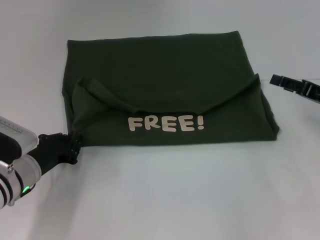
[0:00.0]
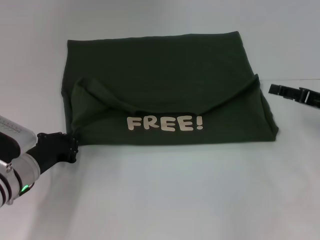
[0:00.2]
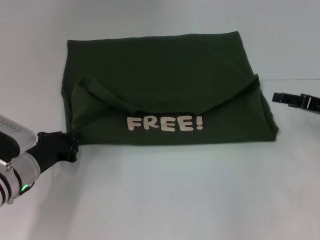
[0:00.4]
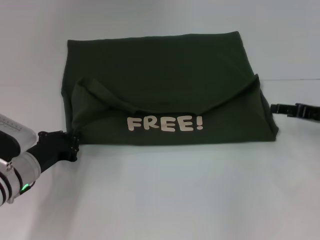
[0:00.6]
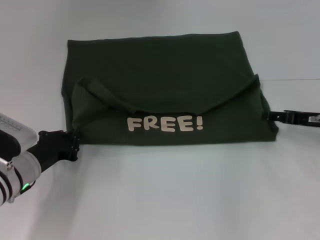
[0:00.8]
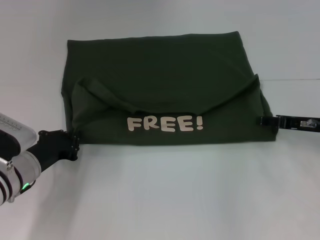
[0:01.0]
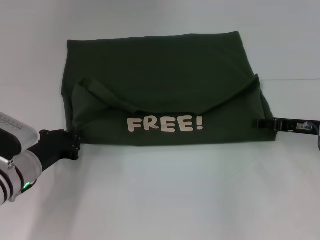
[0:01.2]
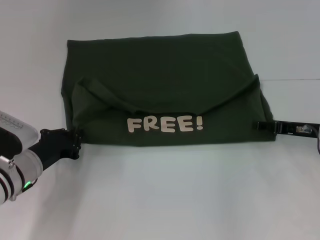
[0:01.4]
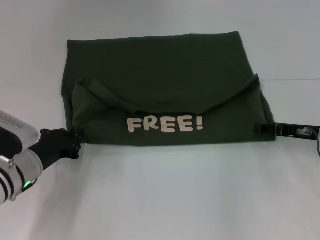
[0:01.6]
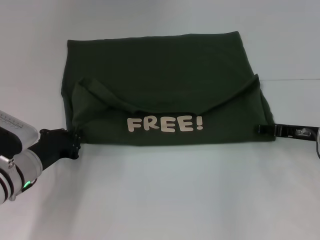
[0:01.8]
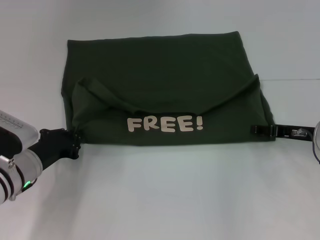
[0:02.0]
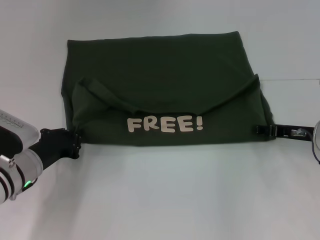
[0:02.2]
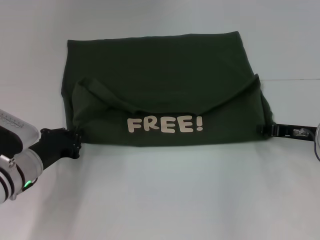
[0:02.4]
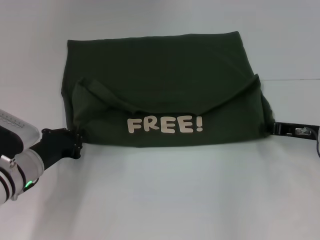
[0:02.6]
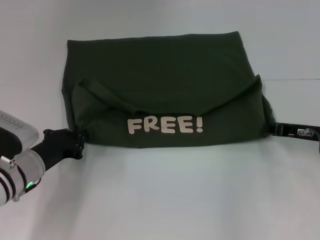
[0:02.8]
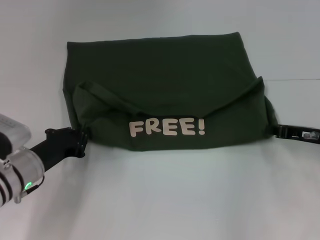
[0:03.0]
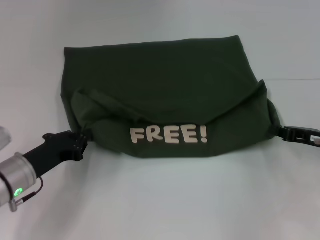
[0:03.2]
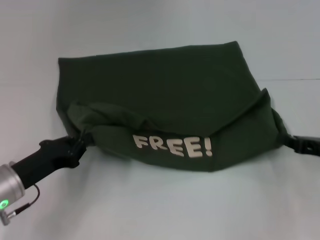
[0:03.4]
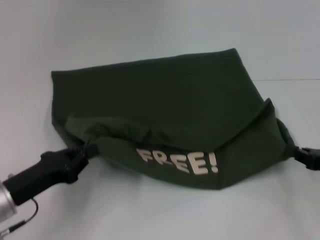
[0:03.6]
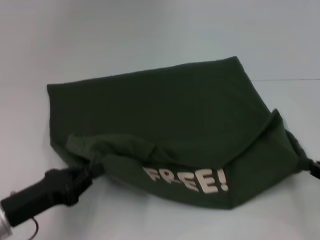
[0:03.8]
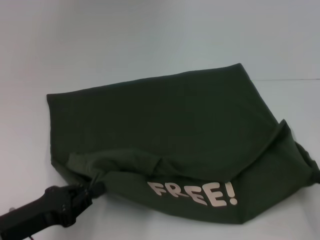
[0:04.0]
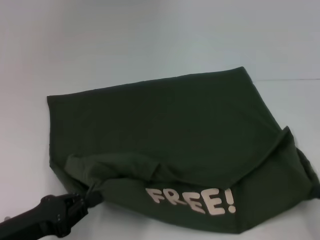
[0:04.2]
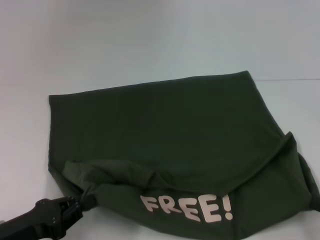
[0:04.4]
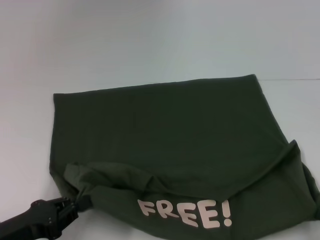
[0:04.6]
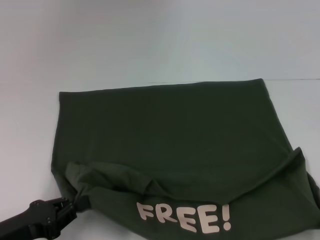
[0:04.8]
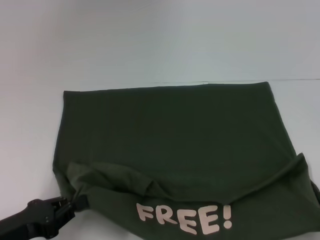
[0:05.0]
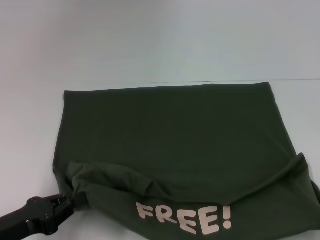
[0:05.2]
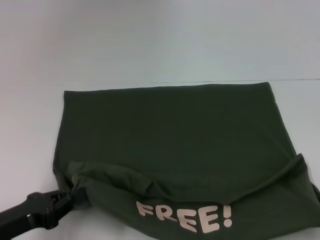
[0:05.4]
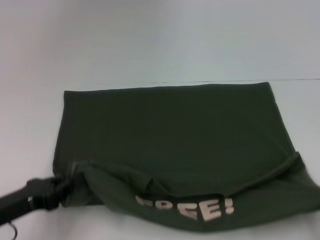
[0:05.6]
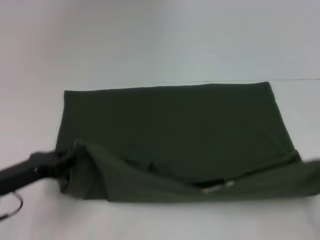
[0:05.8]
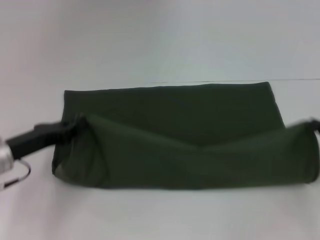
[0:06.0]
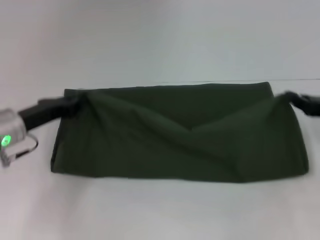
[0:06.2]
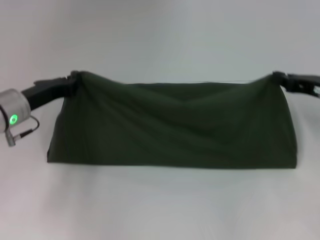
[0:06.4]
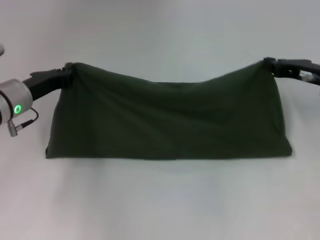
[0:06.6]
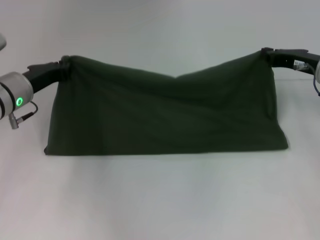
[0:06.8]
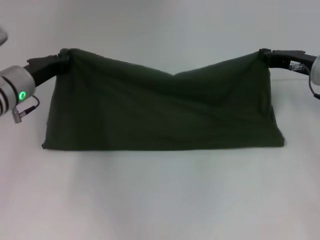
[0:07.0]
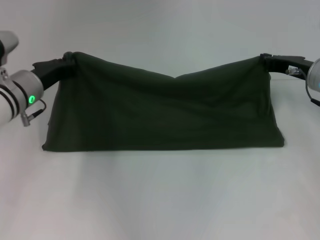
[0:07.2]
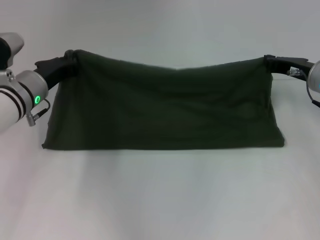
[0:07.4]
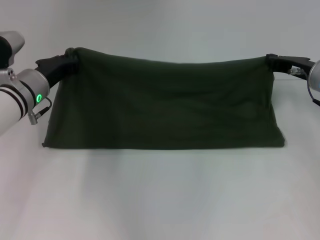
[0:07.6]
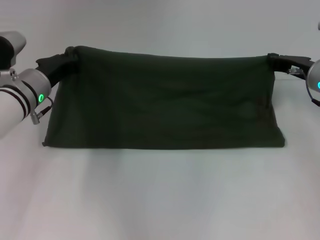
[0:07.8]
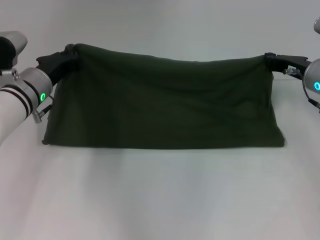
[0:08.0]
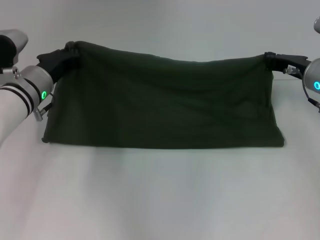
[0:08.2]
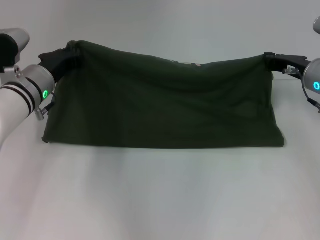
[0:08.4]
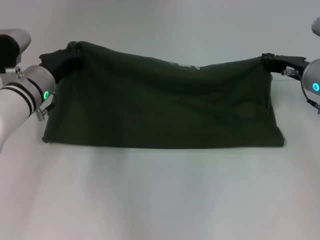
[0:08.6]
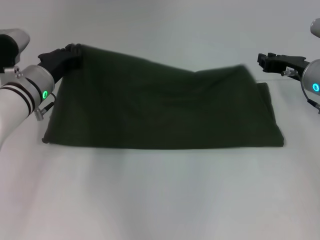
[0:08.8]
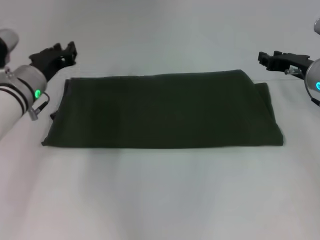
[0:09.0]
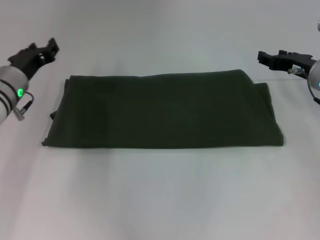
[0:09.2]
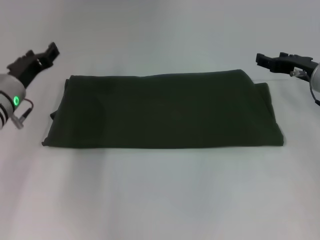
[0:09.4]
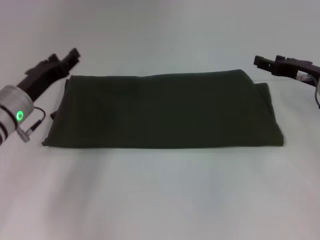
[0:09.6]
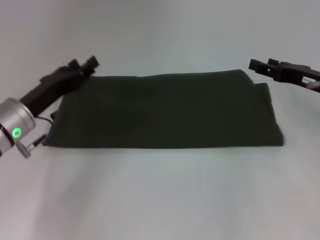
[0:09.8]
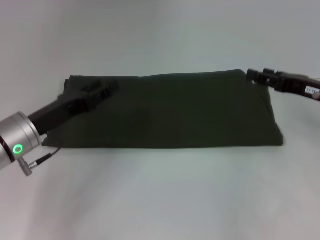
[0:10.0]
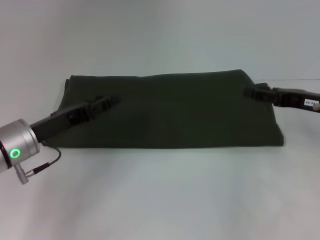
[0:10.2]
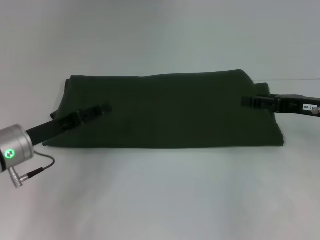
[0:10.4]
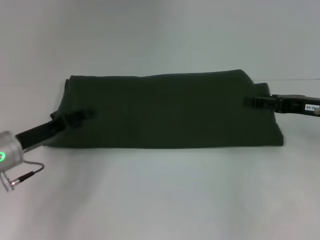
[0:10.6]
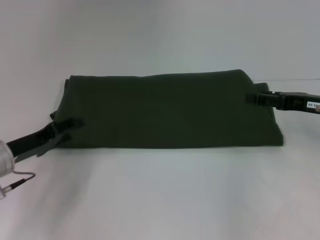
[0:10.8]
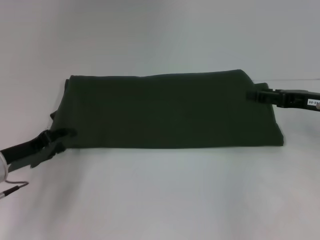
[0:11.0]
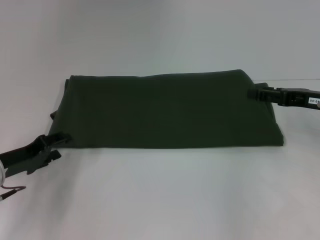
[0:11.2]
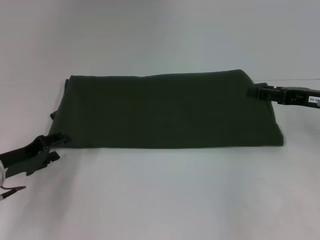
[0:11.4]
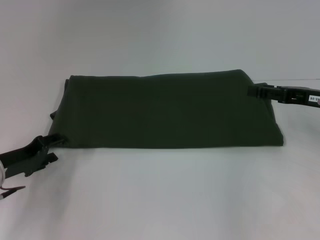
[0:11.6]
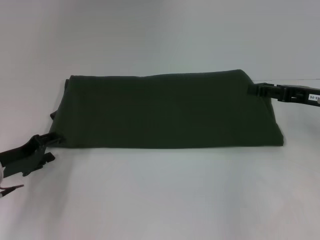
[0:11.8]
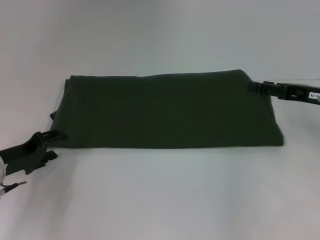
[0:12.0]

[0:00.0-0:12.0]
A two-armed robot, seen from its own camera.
Step, 0:00.0 to 0:05.0: Pull the clothes with your left hand.
Step, 0:00.0 to 0:05.0: Pull the clothes with your right hand.
Step, 0:05.2 to 0:09.0: Fold the clothes with your right hand.
0:00.0 to 0:01.6: The right gripper ends up about 5 cm from where it was.
0:01.6 to 0:03.0: The right gripper closes.
0:03.0 to 0:04.4: Both grippers travel together backward, some 15 cm.
0:04.4 to 0:06.0: The grippers both shift forward by some 10 cm.
0:06.0 to 0:07.6: The left gripper travels forward and to the right by approximately 10 cm. The right gripper moves forward and to the left, about 20 cm.
0:07.6 to 0:09.0: The right gripper opens its fingers.
0:09.0 to 0:10.4: The grippers both shift backward by about 10 cm. The left gripper opens. The right gripper opens.
0:10.4 to 0:12.0: The left gripper moves approximately 5 cm.

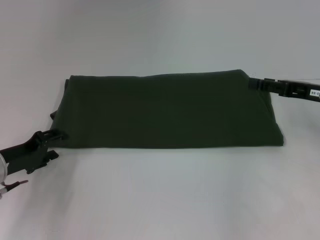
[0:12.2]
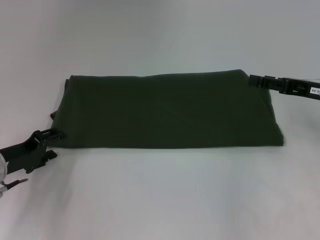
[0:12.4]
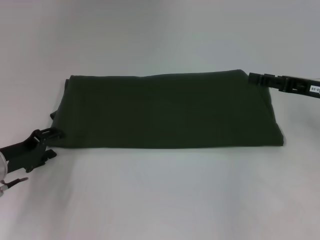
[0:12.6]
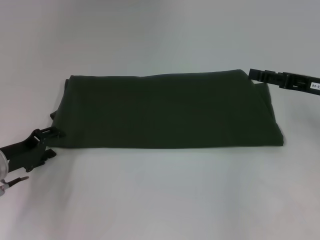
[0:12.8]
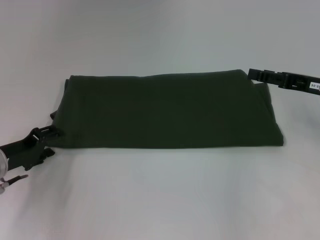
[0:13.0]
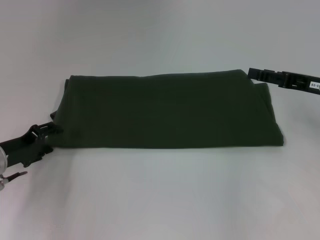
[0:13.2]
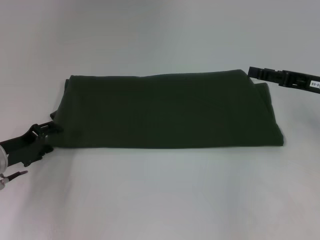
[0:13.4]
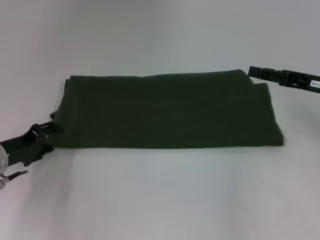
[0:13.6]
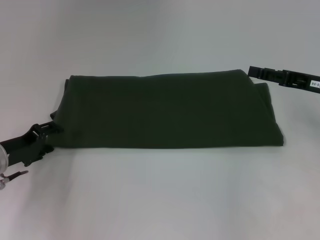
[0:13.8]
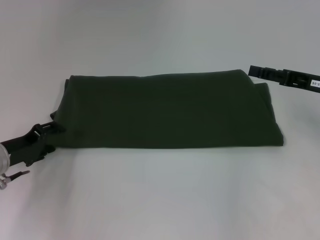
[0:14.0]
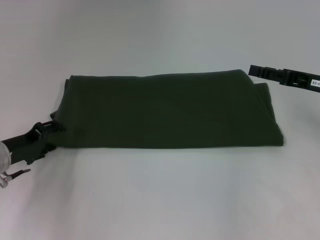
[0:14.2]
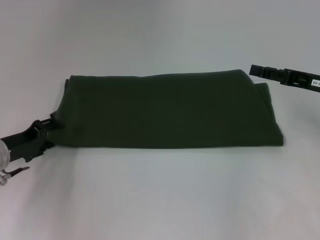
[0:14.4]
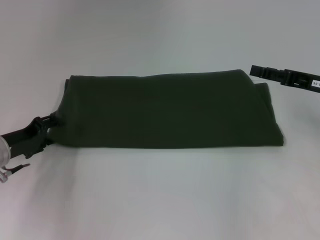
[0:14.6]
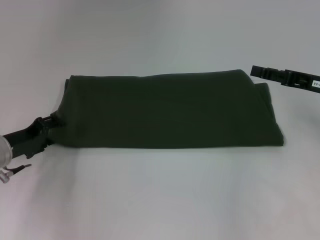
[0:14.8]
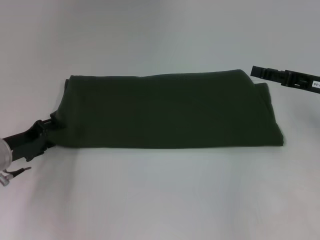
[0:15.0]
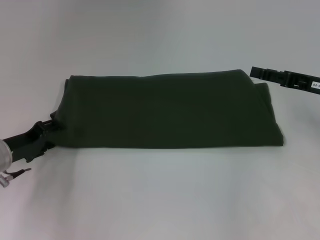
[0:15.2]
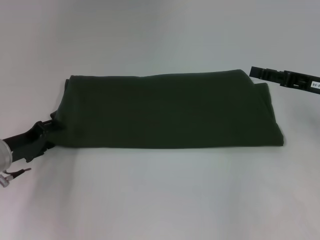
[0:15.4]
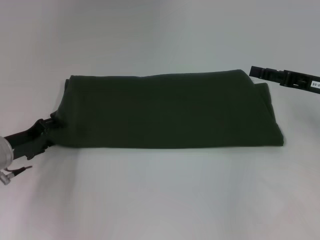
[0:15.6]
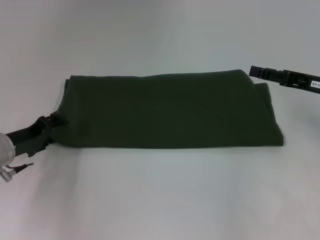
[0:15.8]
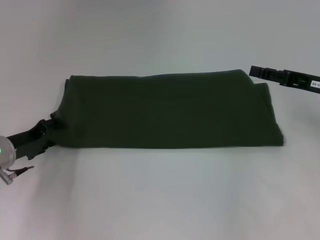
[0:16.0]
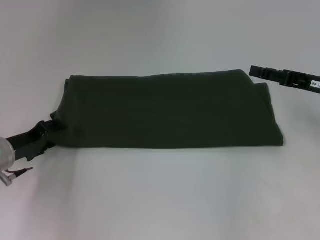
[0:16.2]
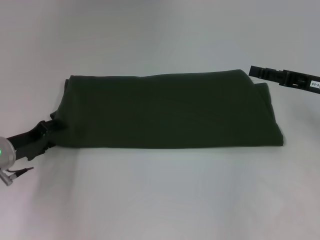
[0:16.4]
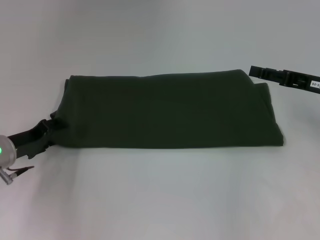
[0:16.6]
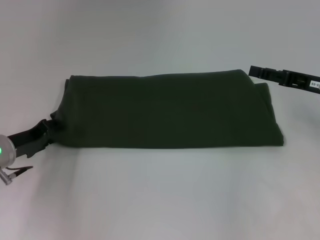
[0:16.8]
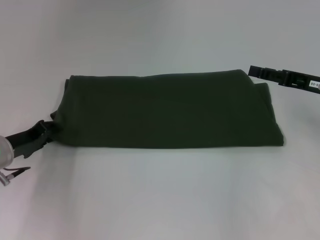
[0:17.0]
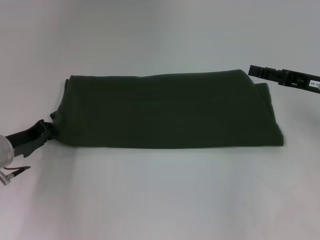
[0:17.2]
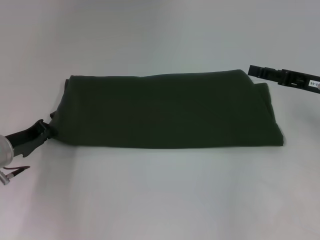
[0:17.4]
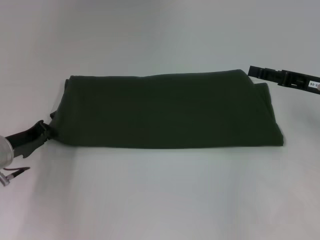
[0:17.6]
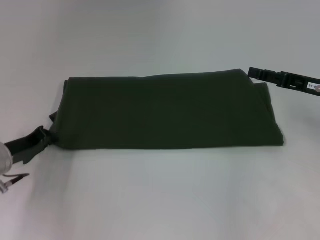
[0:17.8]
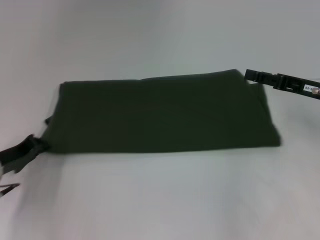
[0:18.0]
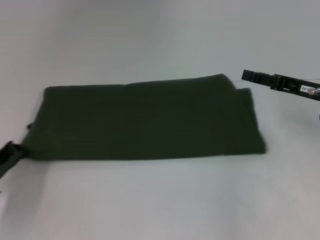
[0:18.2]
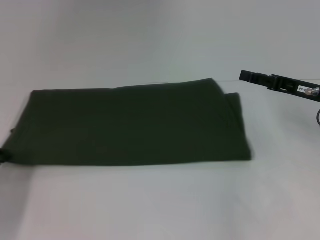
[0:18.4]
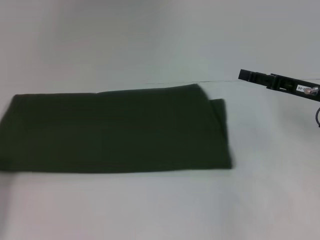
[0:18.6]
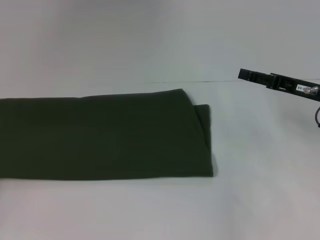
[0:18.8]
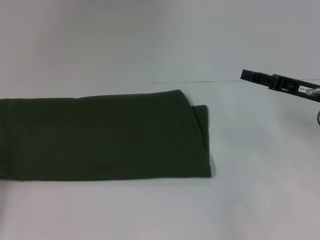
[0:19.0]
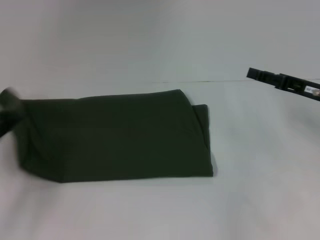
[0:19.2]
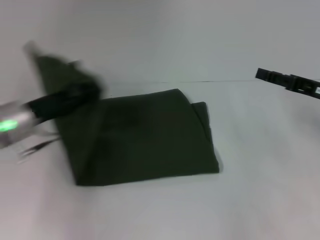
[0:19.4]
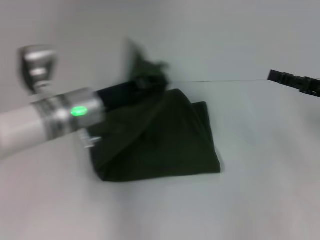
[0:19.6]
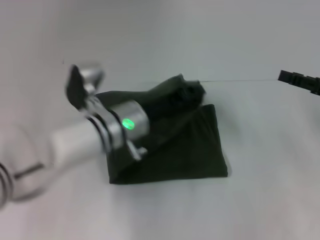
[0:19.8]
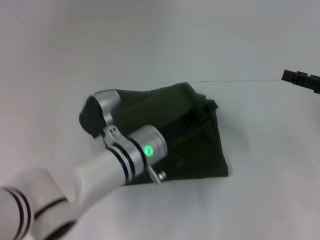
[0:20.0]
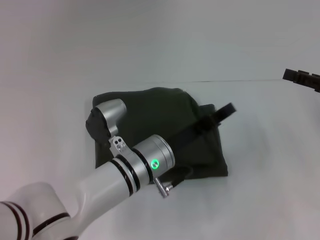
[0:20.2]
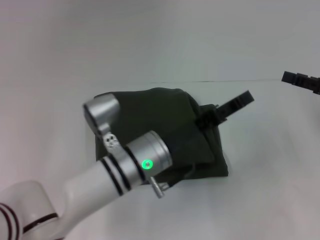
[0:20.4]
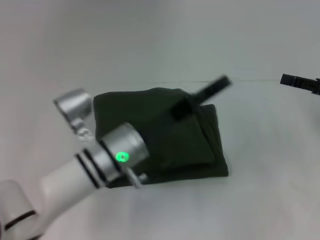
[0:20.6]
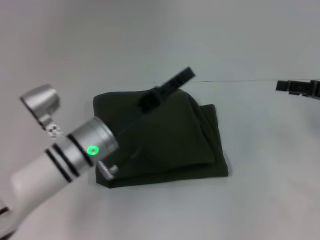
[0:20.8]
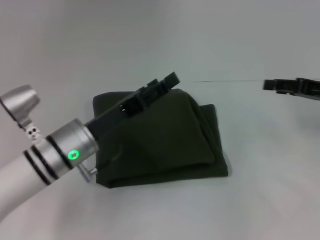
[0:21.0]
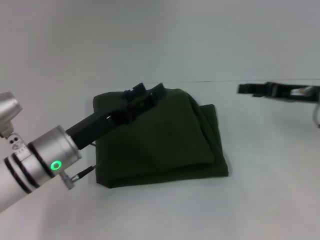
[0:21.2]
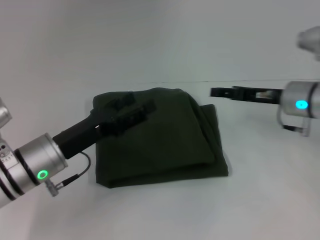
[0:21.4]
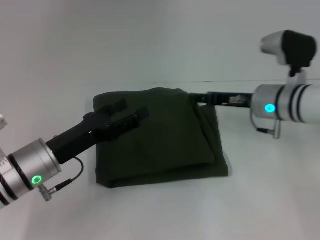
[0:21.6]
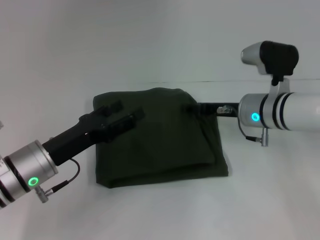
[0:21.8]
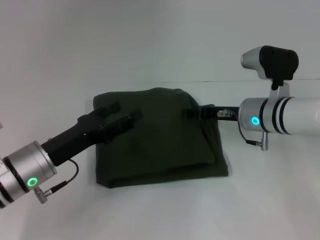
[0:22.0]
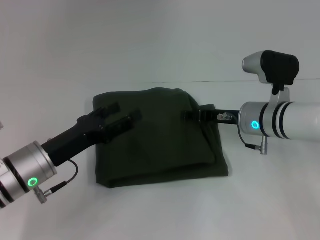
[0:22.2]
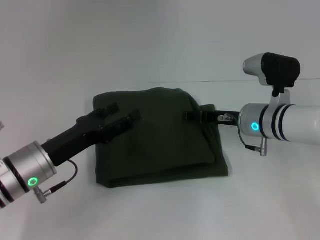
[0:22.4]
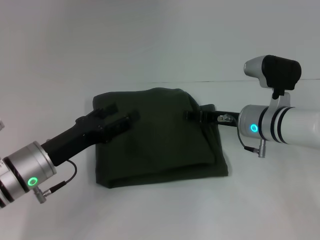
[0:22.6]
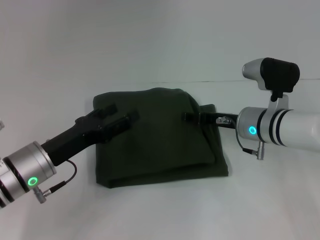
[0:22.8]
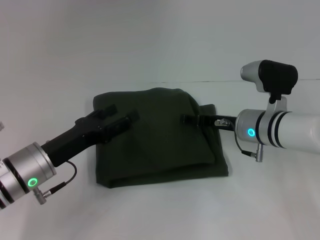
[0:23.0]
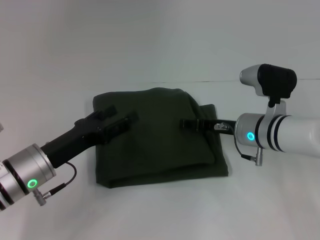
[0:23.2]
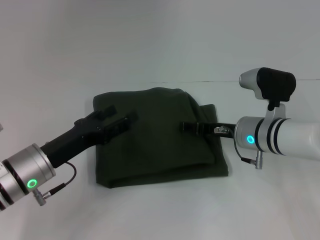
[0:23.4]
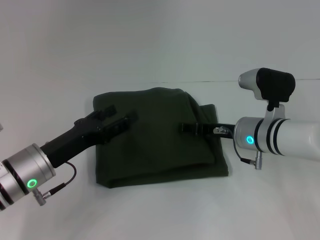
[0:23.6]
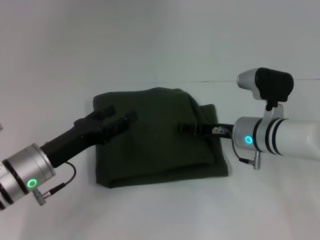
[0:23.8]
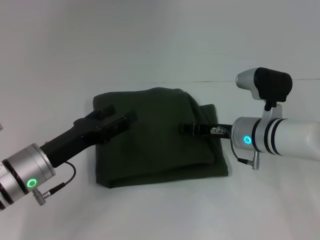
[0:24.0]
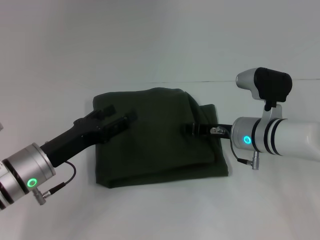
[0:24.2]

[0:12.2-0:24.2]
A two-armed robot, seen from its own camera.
Step, 0:12.2 to 0:20.2: Fold the clothes with your left hand.
0:12.2 to 0:13.8: There are only small adjustments of the grippers.
0:13.8 to 0:15.2: The two grippers keep their place.
0:15.2 to 0:16.6: The two grippers keep their place.
0:16.6 to 0:18.2: The left gripper moves backward, some 5 cm, and closes up.
0:18.2 to 0:19.8: The left gripper shifts some 25 cm to the right. Meanwhile the right gripper goes some 5 cm to the right.
0:19.8 to 0:21.2: The right gripper shifts approximately 10 cm to the left and forward. Meanwhile the left gripper goes some 10 cm to the left and backward, and opens.
0:21.2 to 0:22.6: The right gripper shifts approximately 15 cm to the left and downward.
0:22.6 to 0:24.2: There are only small adjustments of the grippers.
